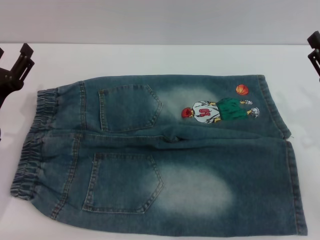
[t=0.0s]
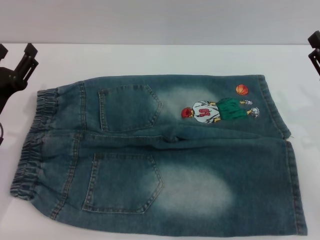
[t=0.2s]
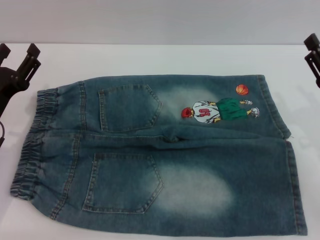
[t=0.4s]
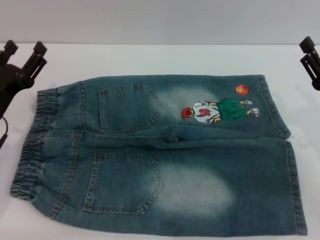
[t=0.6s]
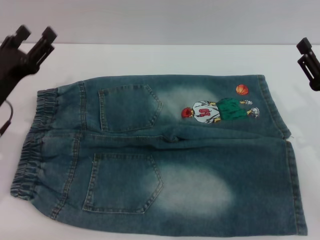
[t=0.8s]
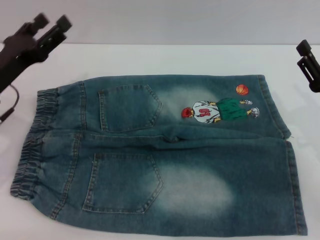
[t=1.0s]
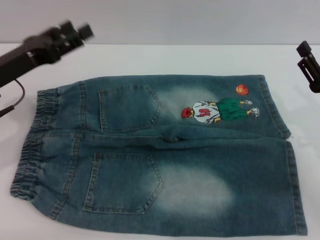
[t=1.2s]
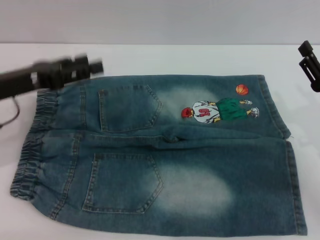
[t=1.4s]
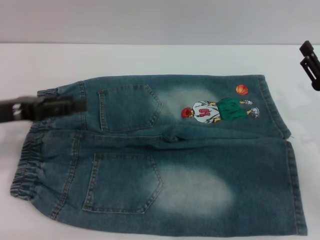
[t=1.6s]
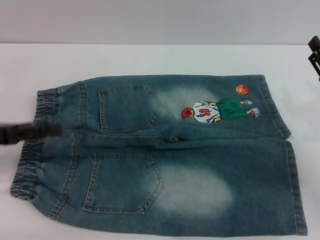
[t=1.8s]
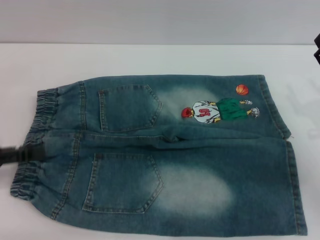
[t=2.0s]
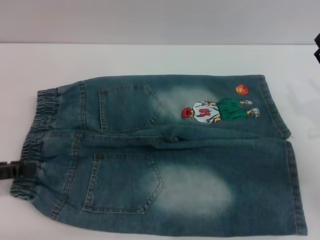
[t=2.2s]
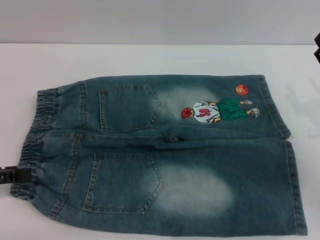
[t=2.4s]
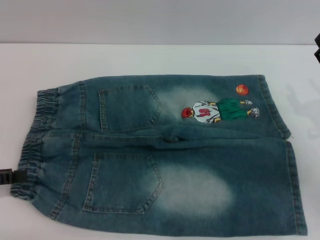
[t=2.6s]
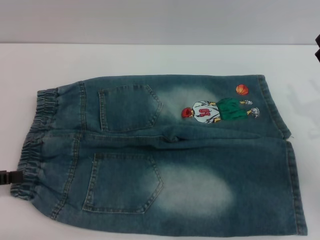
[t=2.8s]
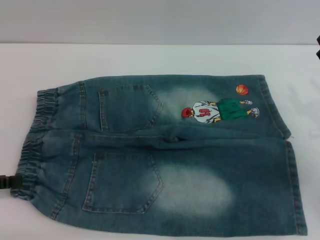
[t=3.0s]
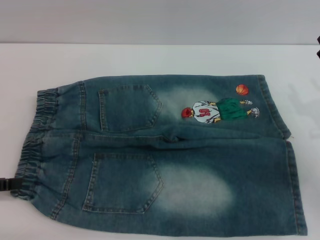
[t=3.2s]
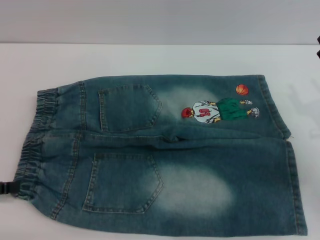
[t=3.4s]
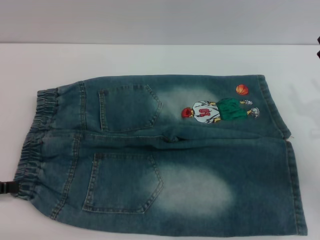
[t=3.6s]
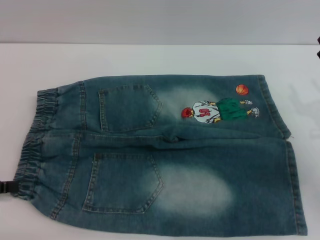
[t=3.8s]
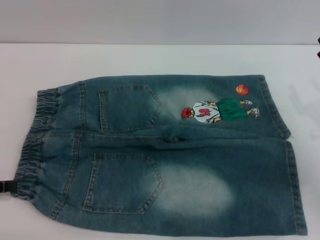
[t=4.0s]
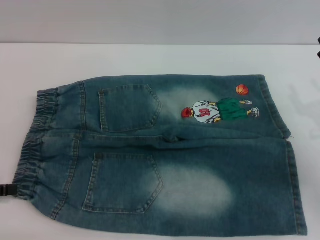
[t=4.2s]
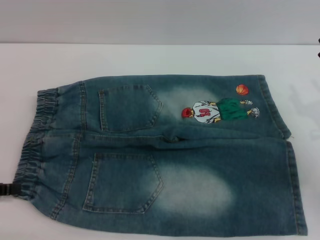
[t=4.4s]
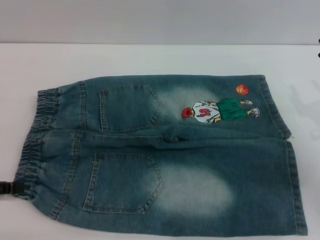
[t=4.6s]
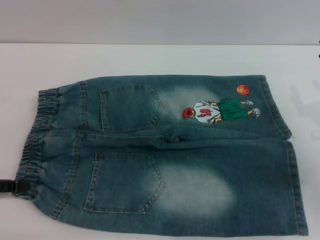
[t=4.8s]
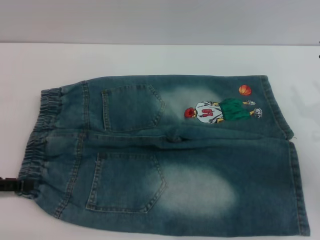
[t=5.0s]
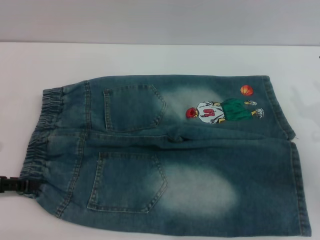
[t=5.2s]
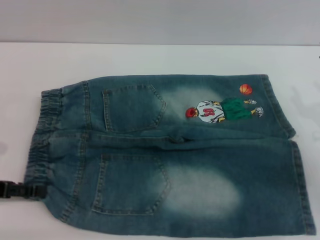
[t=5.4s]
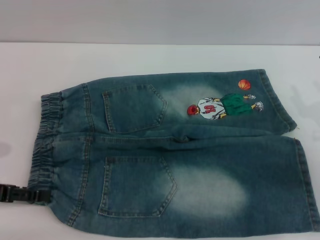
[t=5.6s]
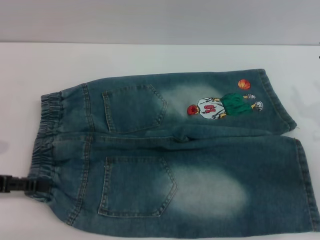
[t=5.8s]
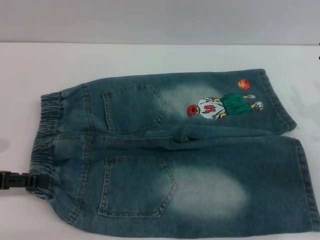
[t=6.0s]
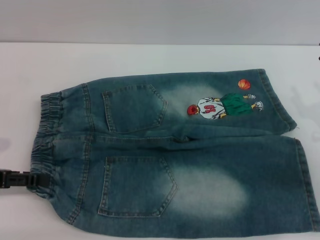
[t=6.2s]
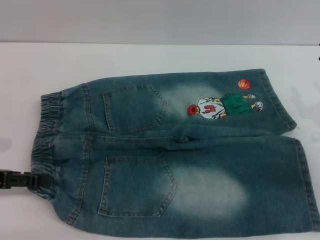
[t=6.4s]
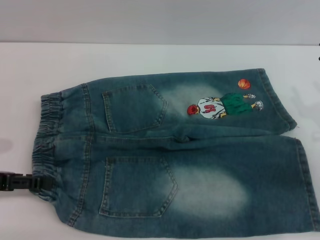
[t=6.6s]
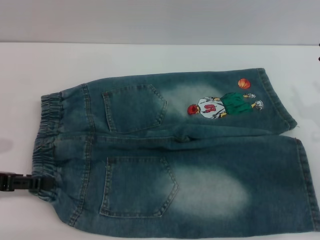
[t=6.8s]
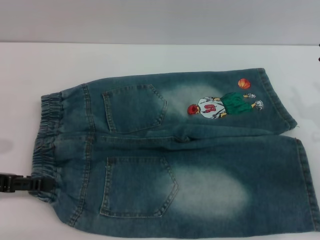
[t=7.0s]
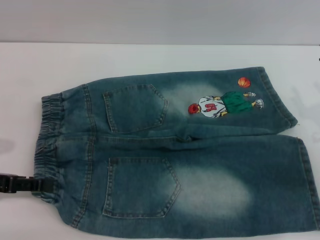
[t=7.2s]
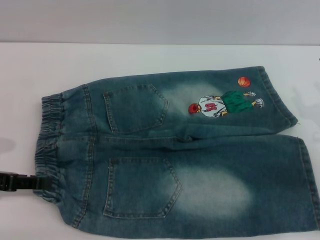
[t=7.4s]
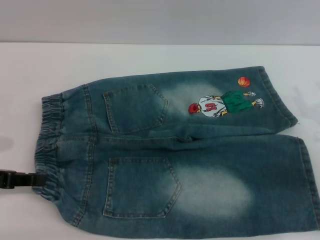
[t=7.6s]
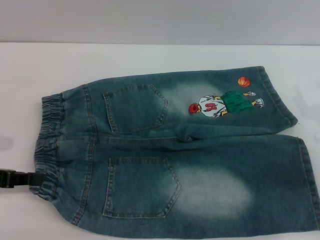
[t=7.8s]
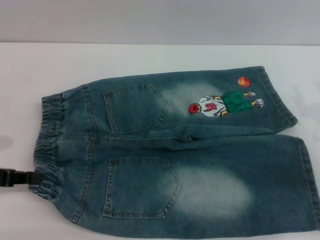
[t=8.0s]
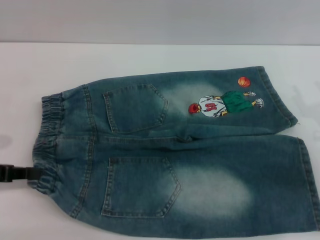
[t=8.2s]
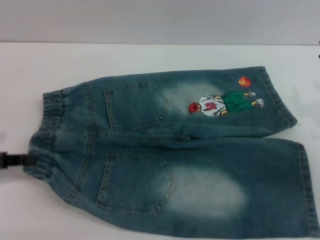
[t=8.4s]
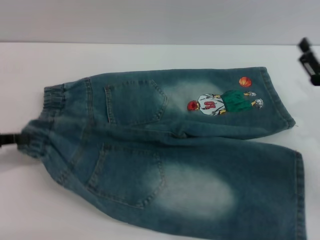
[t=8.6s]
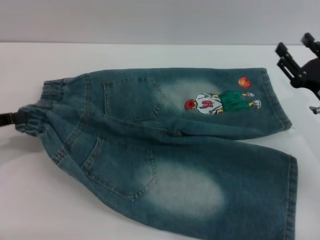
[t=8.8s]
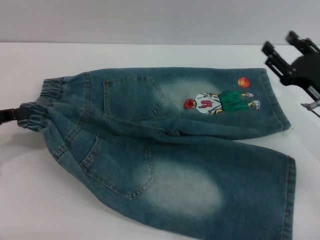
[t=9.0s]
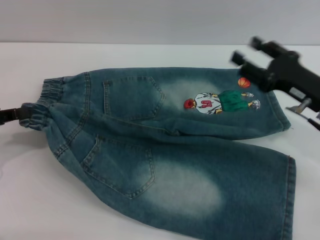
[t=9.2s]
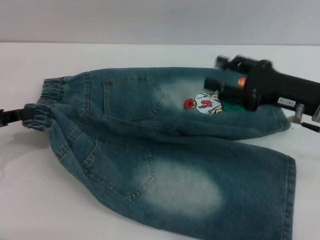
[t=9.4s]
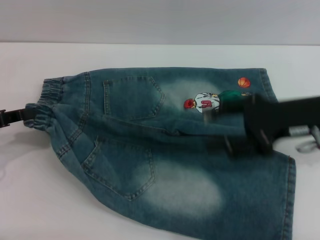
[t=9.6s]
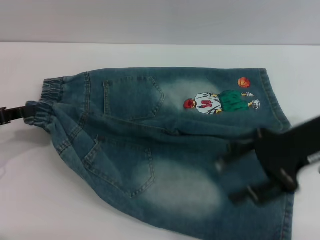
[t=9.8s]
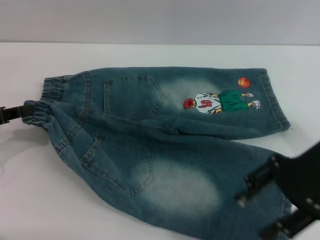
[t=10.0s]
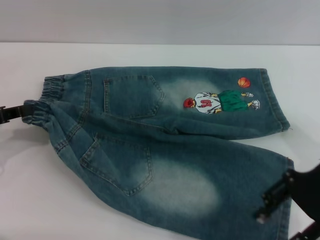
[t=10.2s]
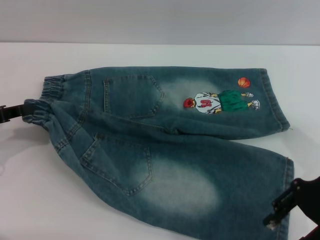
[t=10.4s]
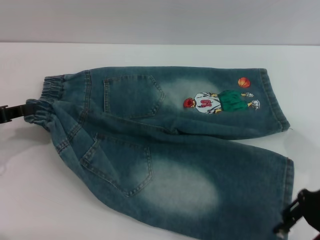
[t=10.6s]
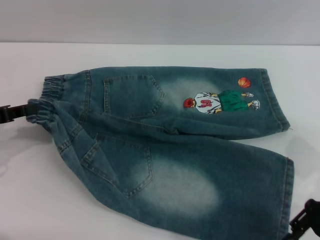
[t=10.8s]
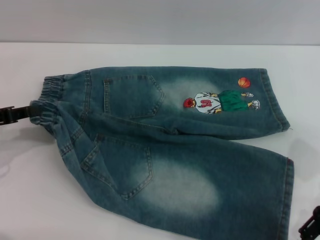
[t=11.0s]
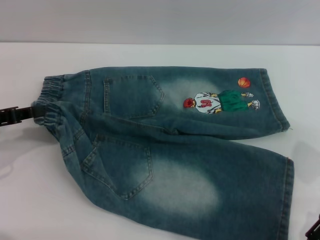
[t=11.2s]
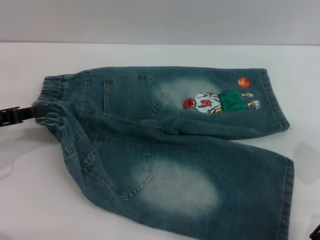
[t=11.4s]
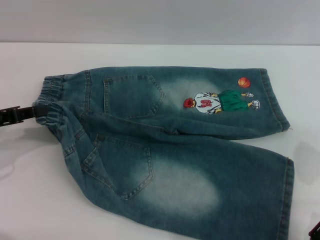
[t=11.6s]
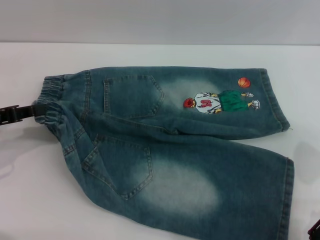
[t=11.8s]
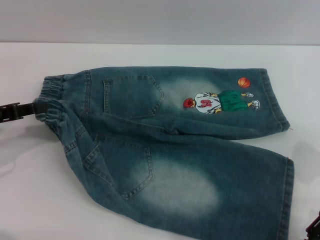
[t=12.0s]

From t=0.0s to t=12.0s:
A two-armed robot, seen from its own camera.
From t=0.0s to t=1.6s: The left gripper shifts about 10 cm upward.
From t=1.6s to t=3.0s: The left gripper shifts about 10 cm to the left and backward.
From t=4.4s to t=6.0s: The grippers make only small movements.
From t=6.0s to t=7.6s: The left gripper closes up.
From t=7.6s to t=9.0s: The right gripper changes place by approximately 5 cm. The left gripper closes.
From t=9.0s to t=10.4s: The right gripper travels upward by some 5 cm.

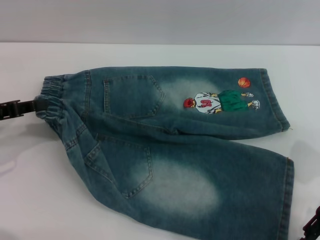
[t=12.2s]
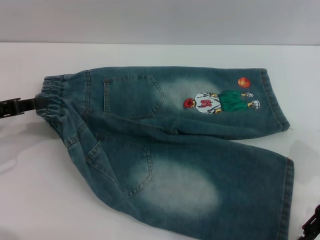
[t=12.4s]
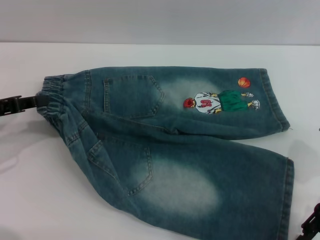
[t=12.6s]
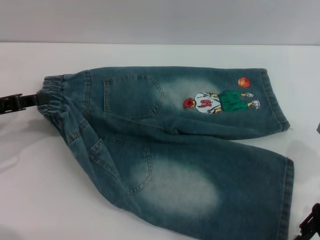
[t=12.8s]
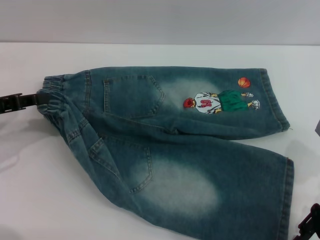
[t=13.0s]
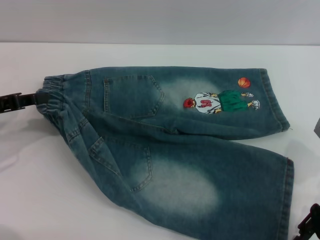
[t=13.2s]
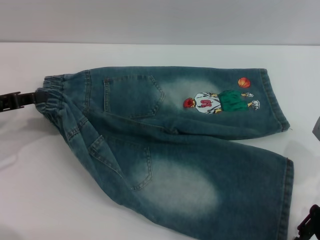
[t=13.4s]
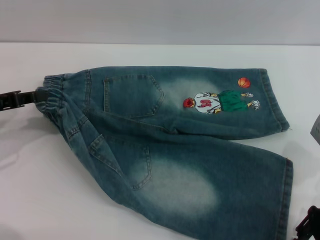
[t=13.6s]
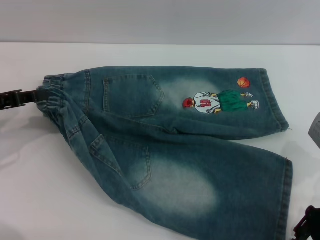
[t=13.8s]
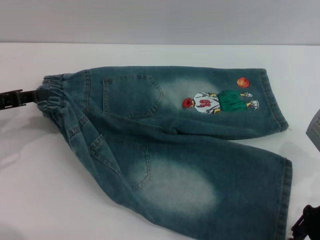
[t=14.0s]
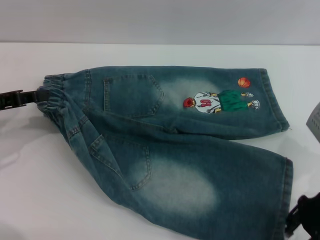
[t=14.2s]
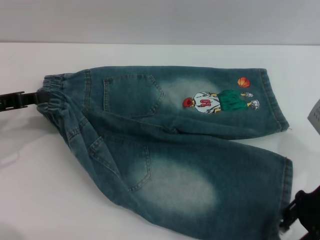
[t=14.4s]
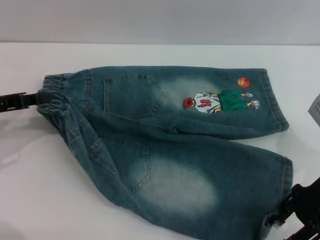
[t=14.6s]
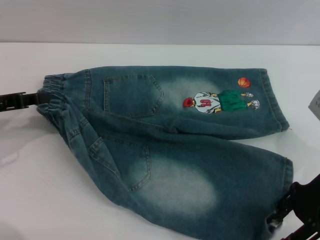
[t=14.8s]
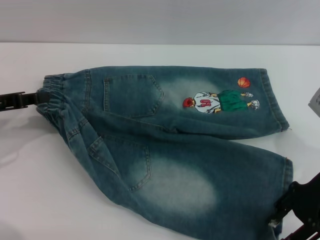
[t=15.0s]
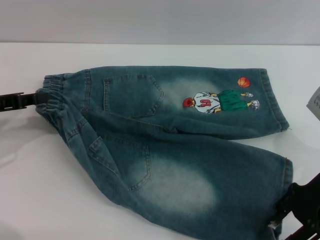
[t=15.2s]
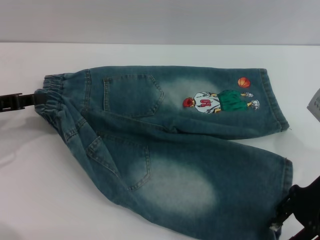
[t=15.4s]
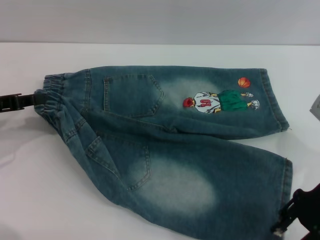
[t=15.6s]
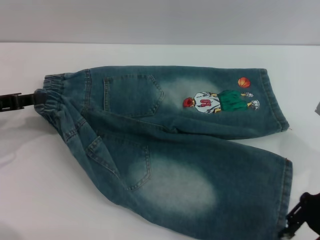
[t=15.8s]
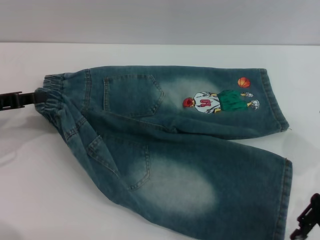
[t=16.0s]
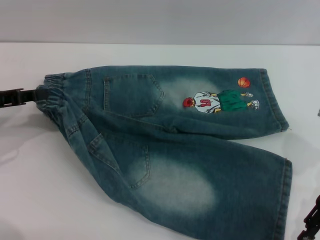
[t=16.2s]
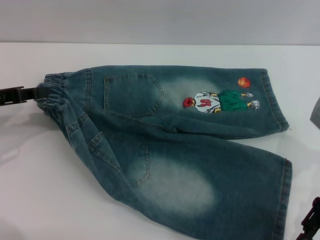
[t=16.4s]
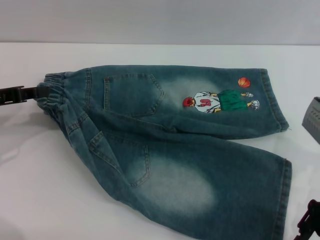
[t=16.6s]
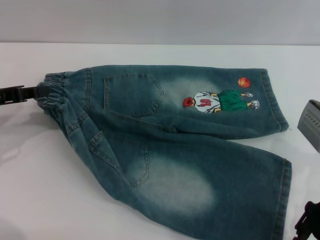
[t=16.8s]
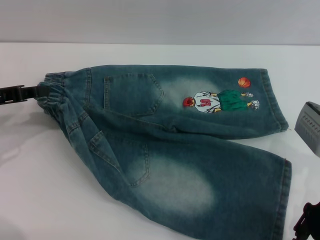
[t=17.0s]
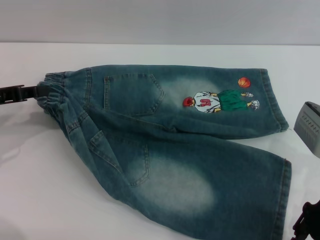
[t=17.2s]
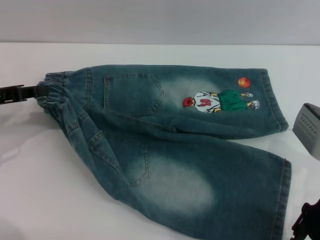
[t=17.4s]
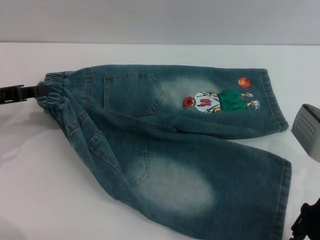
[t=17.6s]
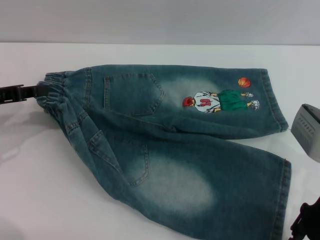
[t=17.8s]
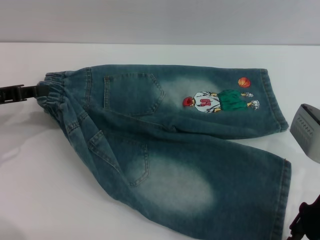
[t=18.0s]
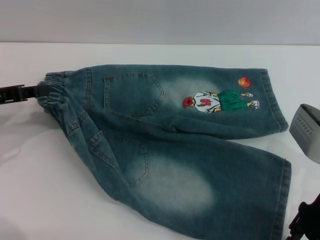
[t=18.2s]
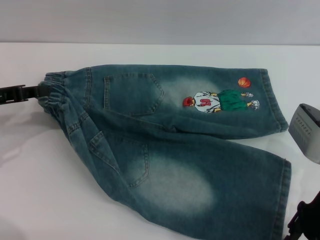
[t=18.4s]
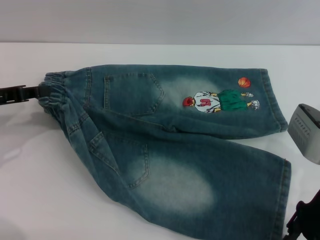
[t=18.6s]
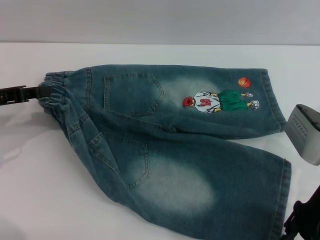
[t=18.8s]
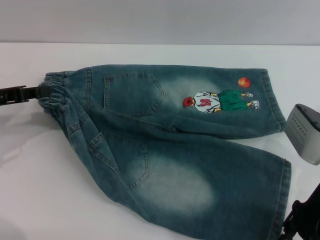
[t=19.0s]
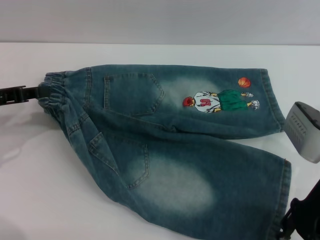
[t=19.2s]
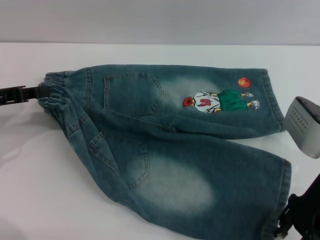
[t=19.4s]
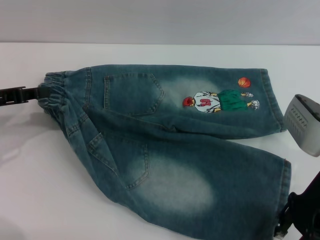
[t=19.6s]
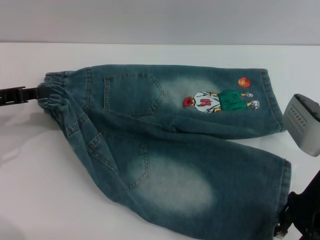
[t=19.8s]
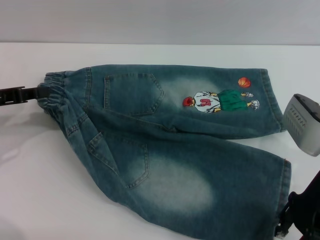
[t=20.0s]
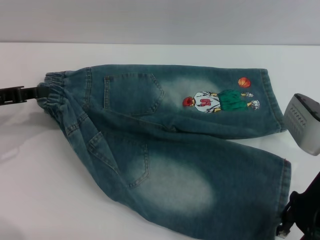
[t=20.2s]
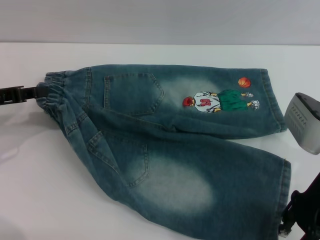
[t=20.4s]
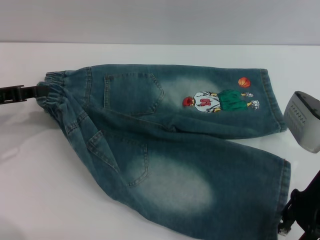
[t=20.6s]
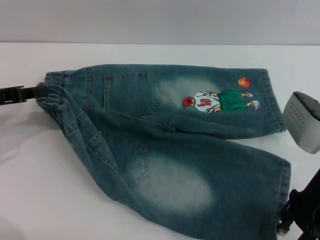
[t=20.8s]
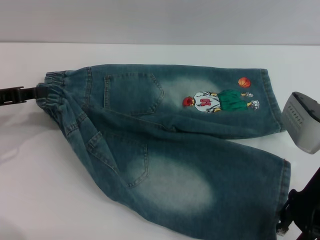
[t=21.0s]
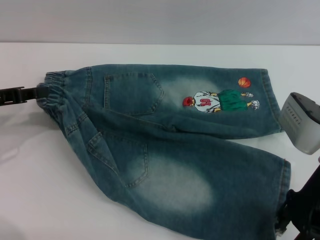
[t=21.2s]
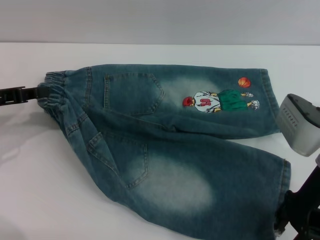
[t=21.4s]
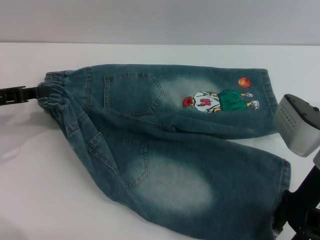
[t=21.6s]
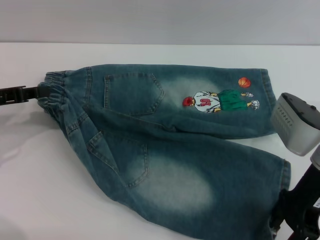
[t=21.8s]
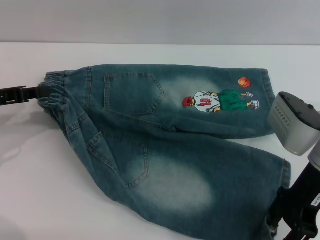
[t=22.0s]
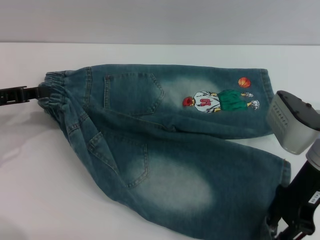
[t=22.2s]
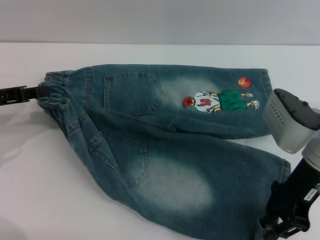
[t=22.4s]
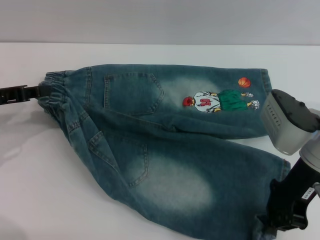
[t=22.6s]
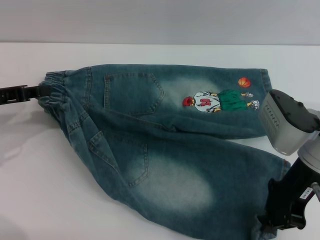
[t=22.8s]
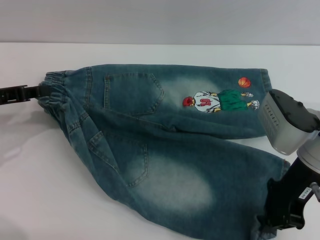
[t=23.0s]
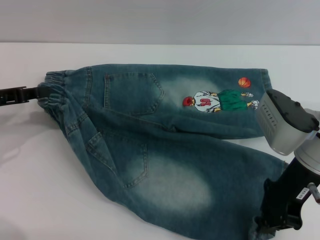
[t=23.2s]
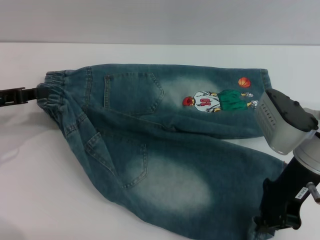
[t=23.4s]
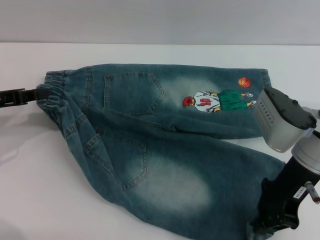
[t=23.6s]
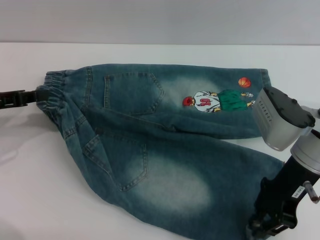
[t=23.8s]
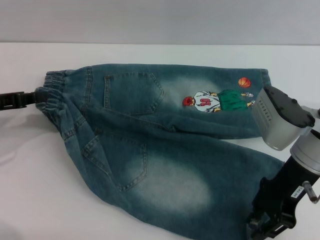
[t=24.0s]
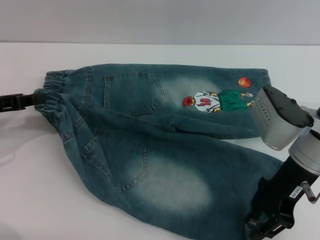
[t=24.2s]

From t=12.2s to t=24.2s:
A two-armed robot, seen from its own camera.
From t=12.2s to t=19.8s: The grippers make only small movements.
From t=19.8s to t=21.2s: Neither gripper changes place.
From t=21.2s to t=22.6s: The right gripper closes its fingers.
From t=22.6s to t=24.2s: Both grippers stay put.
